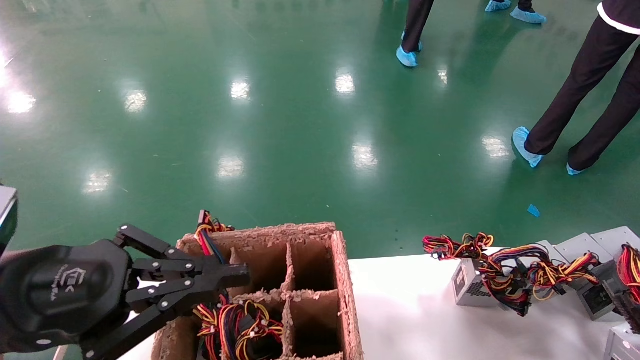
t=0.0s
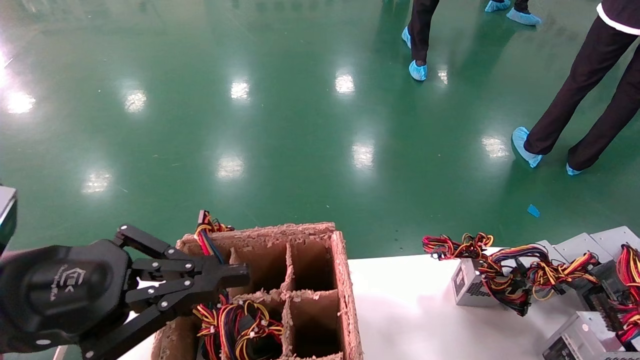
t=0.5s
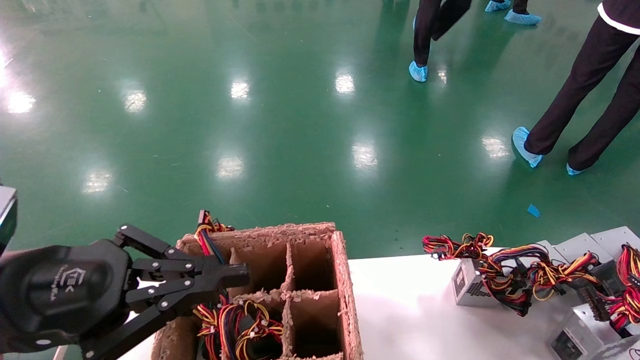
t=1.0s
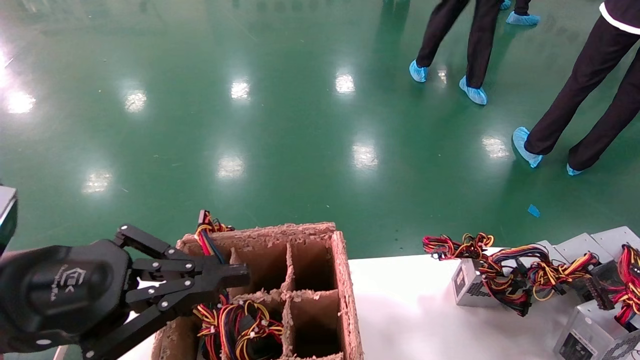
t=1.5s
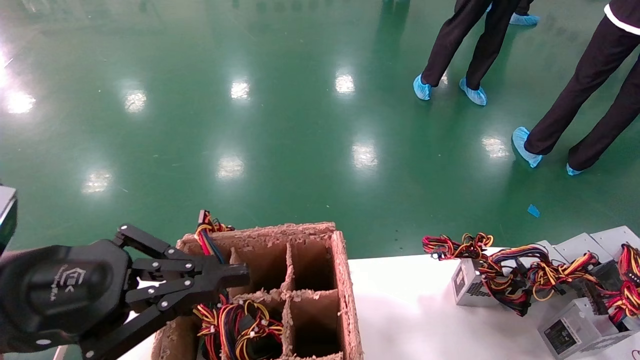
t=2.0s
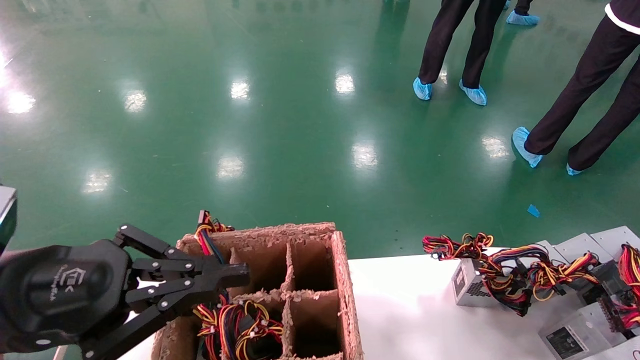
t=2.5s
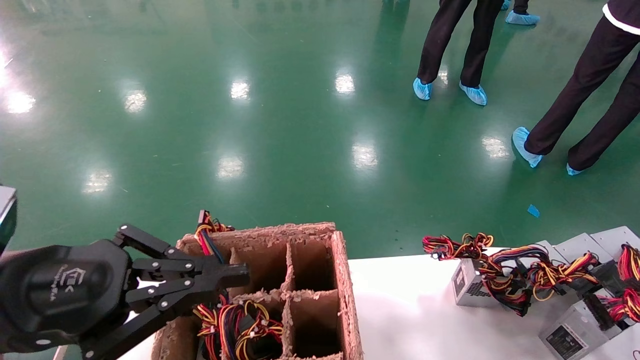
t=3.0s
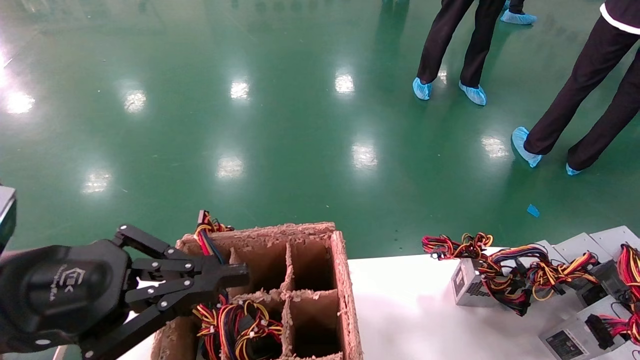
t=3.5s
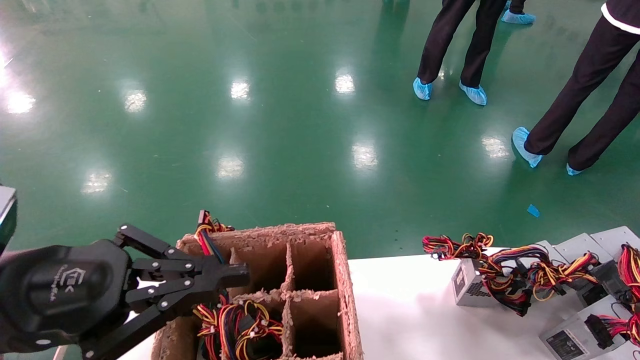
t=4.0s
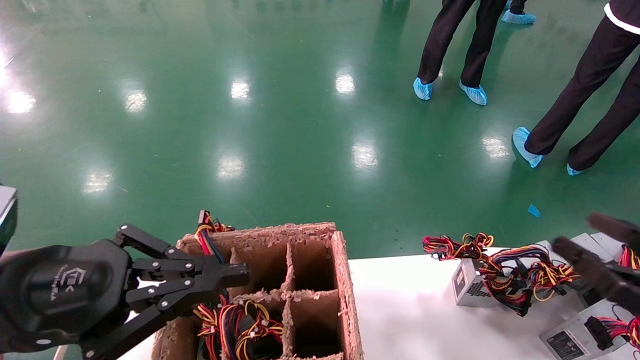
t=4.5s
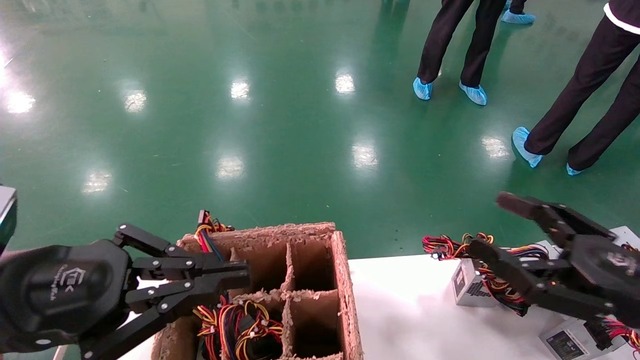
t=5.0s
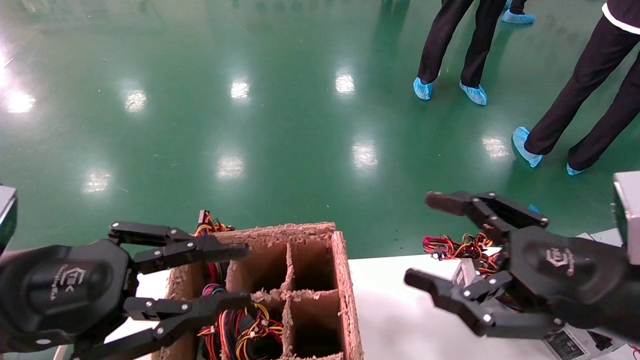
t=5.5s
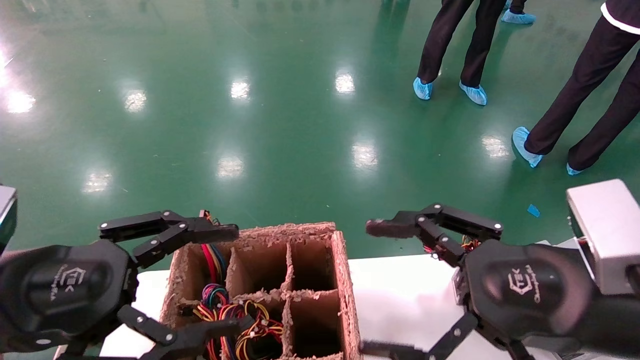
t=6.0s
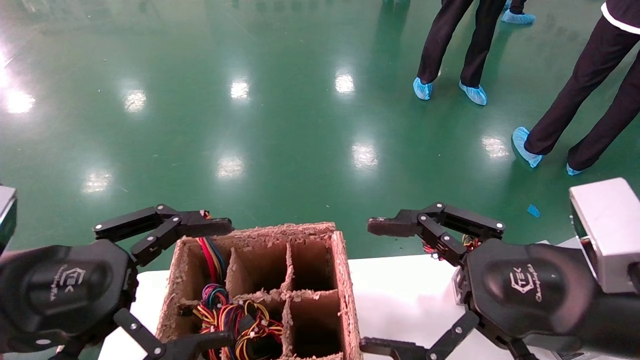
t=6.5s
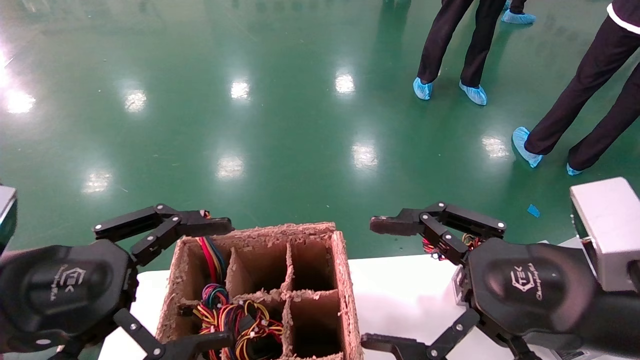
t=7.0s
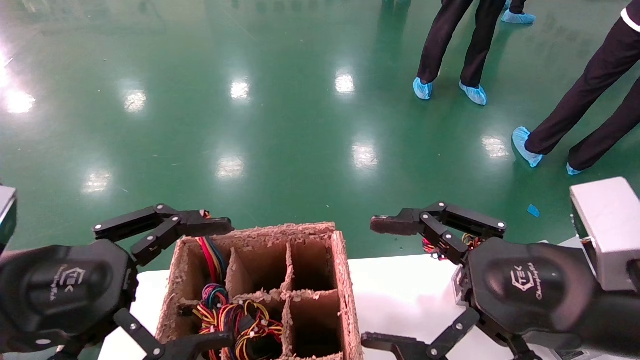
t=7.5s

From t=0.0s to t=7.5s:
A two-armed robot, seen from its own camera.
Step, from t=0.0s to t=3.5s: Place the main unit power supply in the designated area.
From t=0.0s to t=2.0s: The right gripper shifts about 5 cm forward.
From t=2.0s to t=4.0s: The right gripper heads upward, covering about 5 cm, and opens its fingers.
From t=4.0s to t=5.5s: The right gripper goes about 20 cm to the left and upward.
From t=5.5s to t=7.5s: The left gripper opens its fingers.

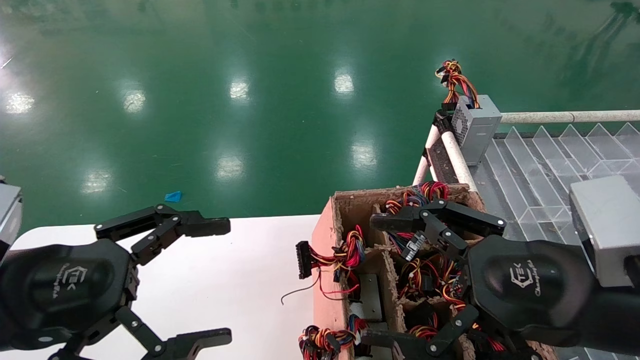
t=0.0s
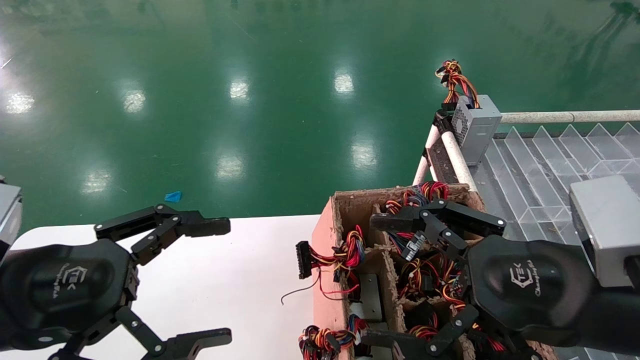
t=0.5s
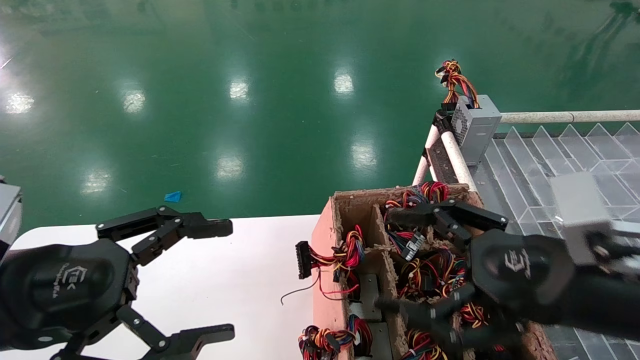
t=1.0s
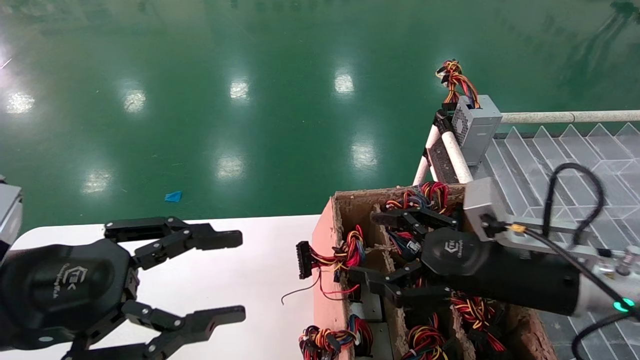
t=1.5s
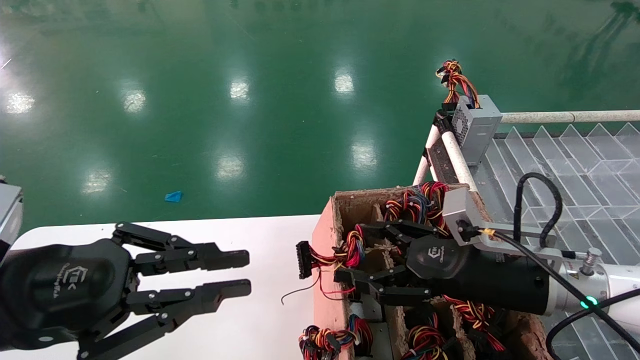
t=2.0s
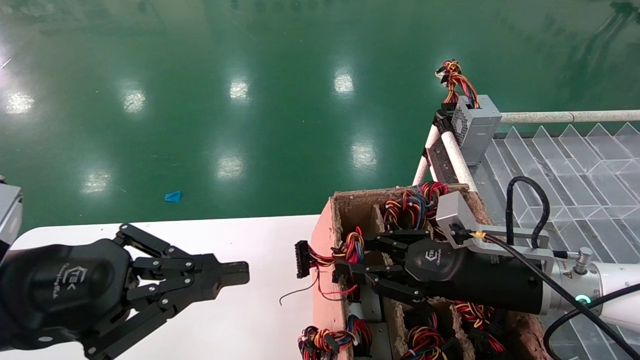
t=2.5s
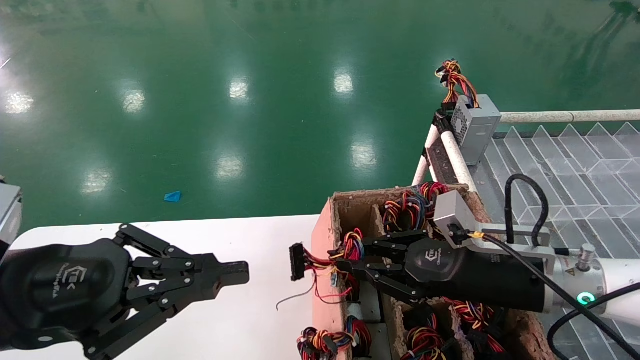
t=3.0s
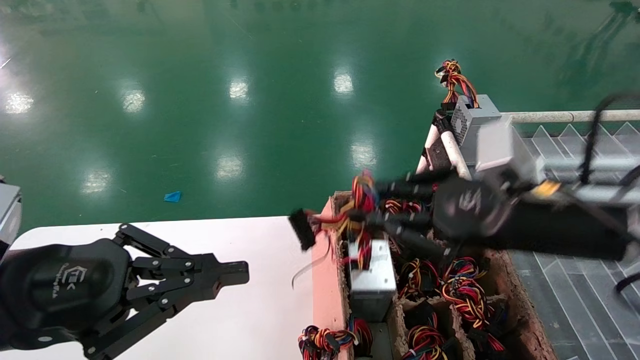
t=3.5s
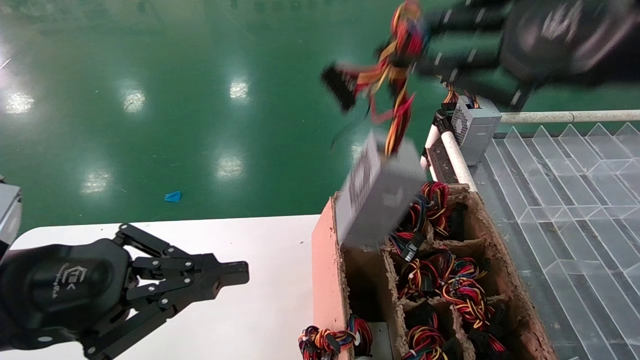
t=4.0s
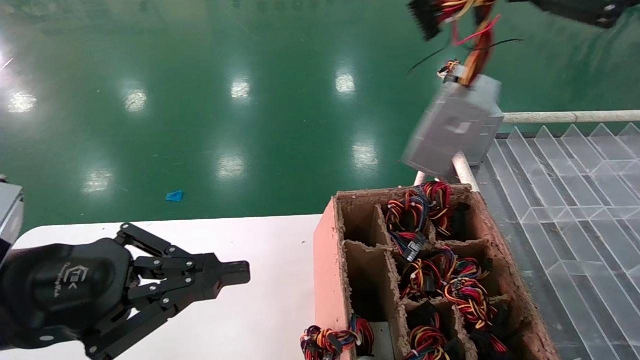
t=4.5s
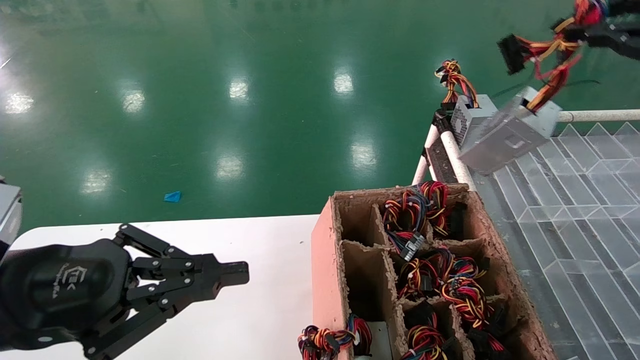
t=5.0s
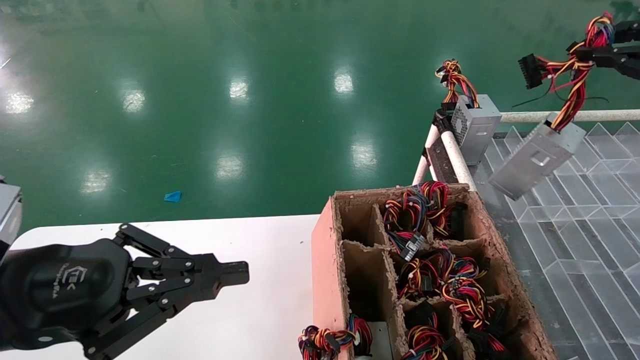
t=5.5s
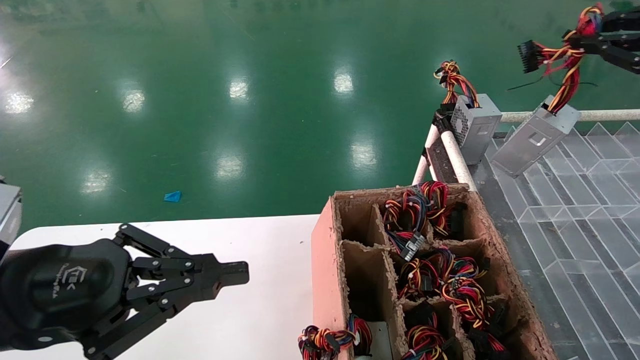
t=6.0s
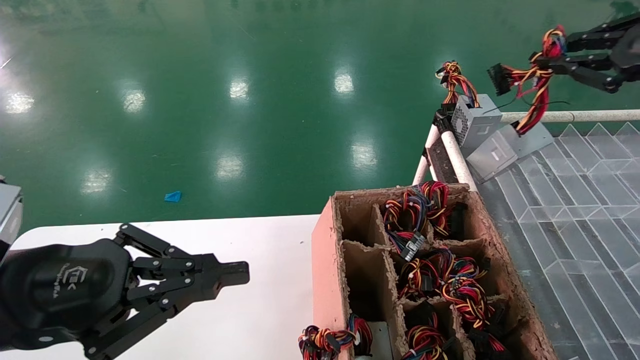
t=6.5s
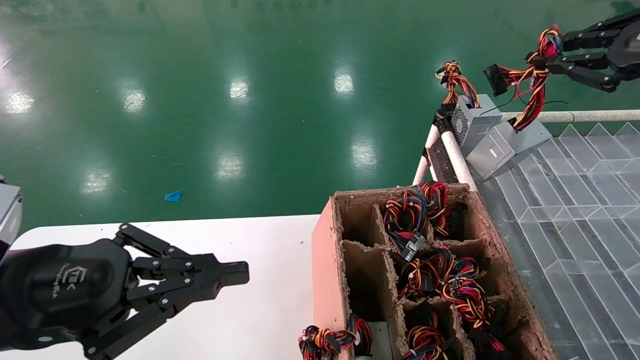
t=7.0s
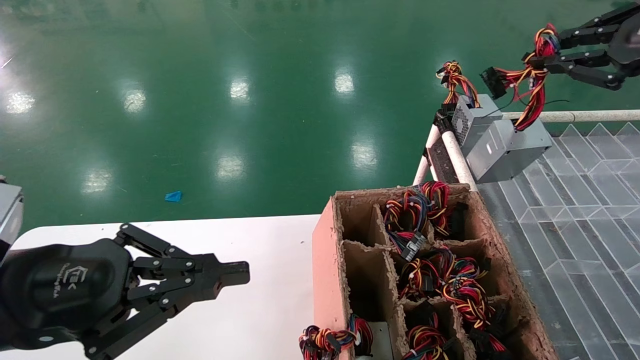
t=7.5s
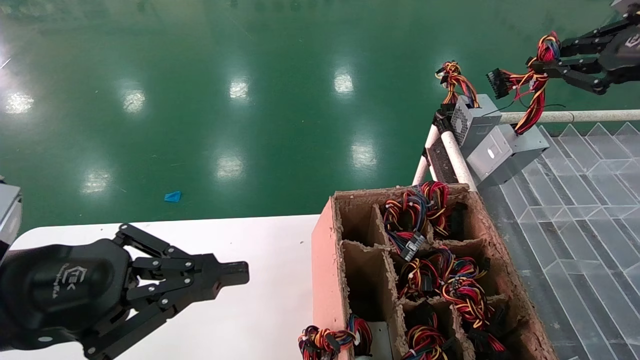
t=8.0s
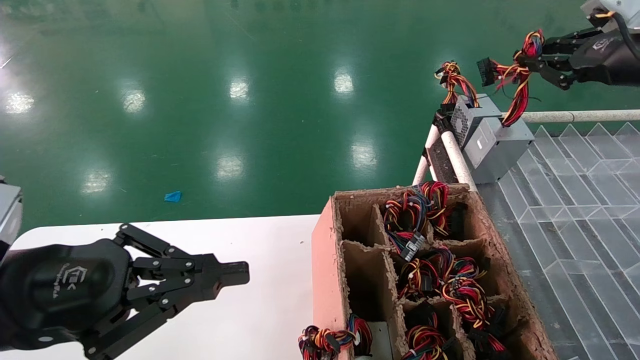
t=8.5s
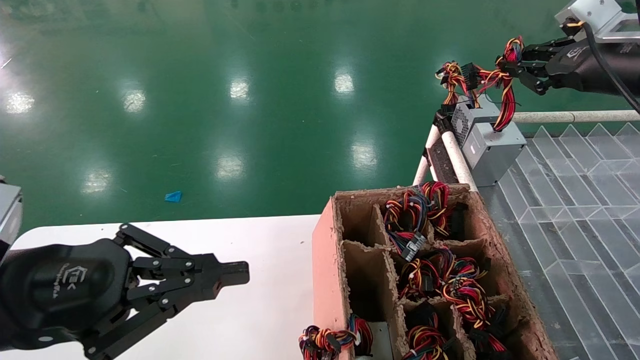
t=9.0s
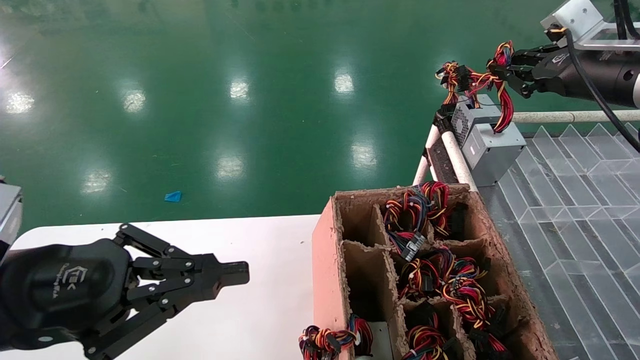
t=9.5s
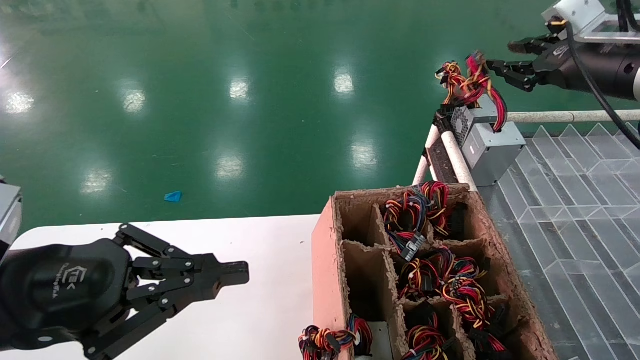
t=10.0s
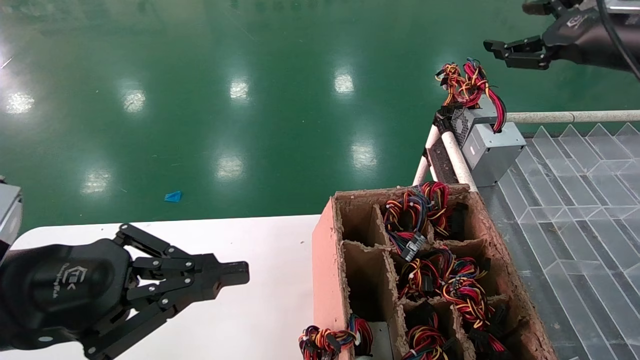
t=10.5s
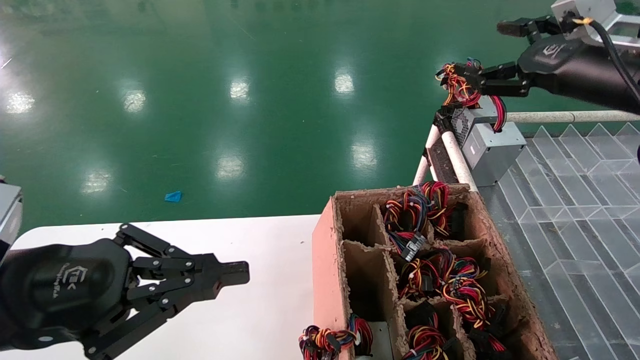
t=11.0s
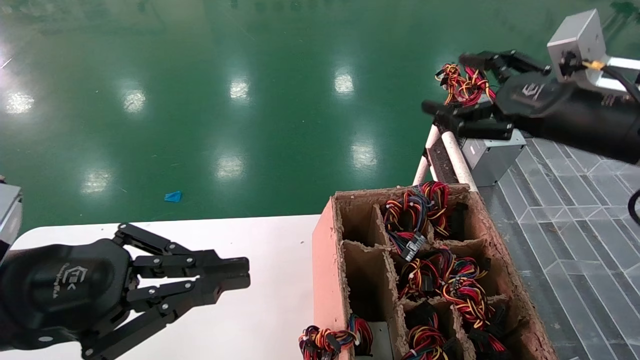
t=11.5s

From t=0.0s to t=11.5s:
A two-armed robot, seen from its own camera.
Step, from t=1.5s to t=3.0s: Grab the main unit power supply from the containment box.
Step, from t=3.5s to t=9.5s: Place the main unit power supply in the designated area.
From t=0.0s to t=2.0s: The left gripper closes its fingers, while the right gripper travels forward and downward by approximately 15 cm.
From t=2.0s to t=4.0s: The right gripper moves upward and backward, roughly 30 cm, and closes up.
From t=4.0s to t=6.0s: The right gripper heads to the right and forward, covering roughly 20 cm.
From t=6.0s to t=7.5s: The grippers make only small movements.
From t=7.5s to t=9.5s: The right gripper shifts about 10 cm forward and downward.
From t=9.5s to t=11.5s: The right gripper goes some 10 cm backward, to the left and downward, and opens up.

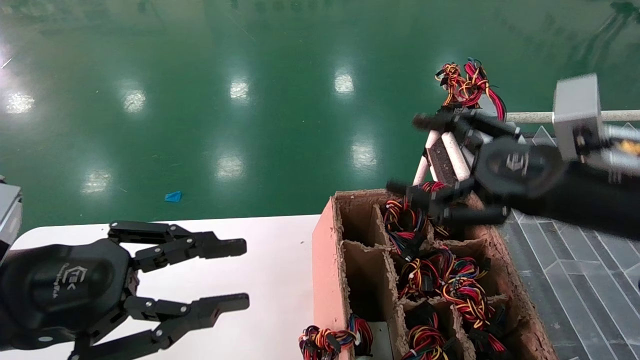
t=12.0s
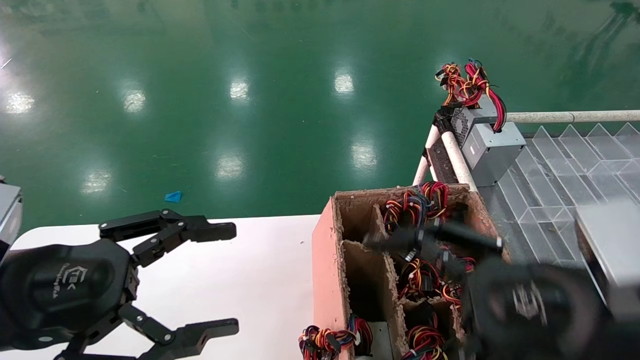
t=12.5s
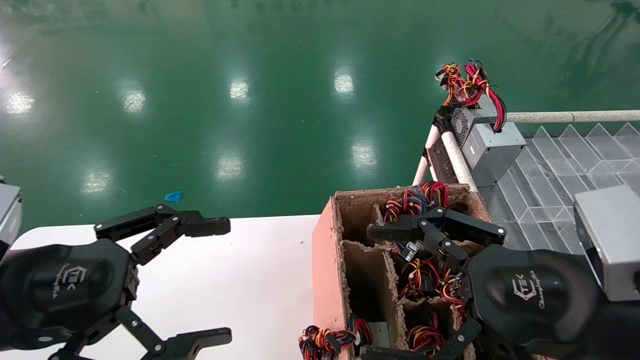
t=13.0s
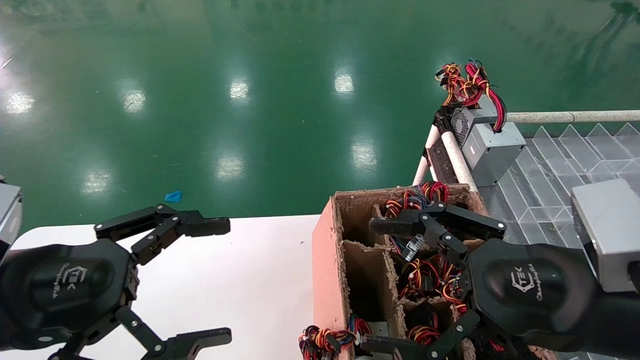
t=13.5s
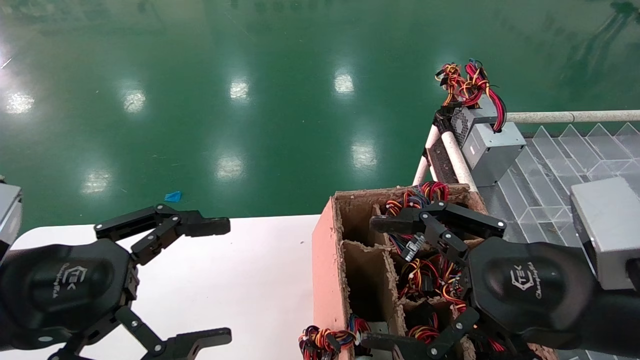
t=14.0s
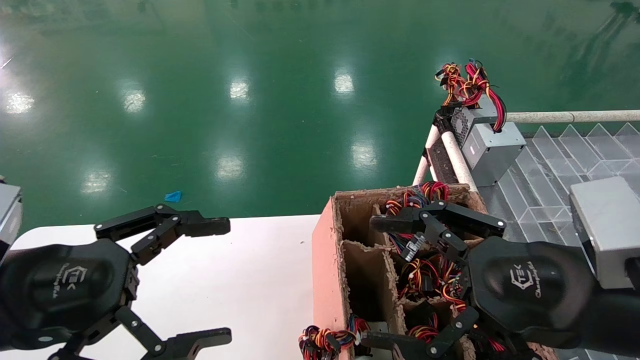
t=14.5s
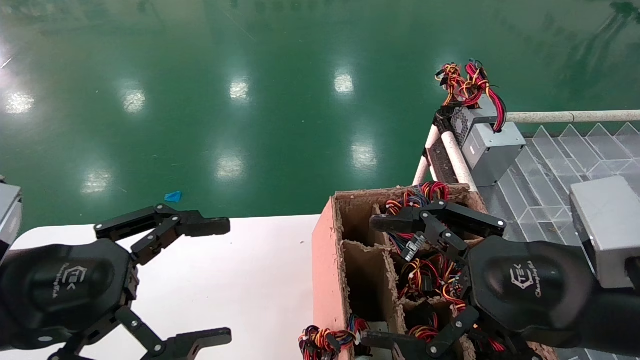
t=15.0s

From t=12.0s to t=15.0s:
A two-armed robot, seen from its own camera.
From t=12.0s to t=13.5s: The left gripper opens up. Meanwhile the right gripper goes about 5 cm backward.
From t=13.5s to t=15.0s: Both grippers stay put.
